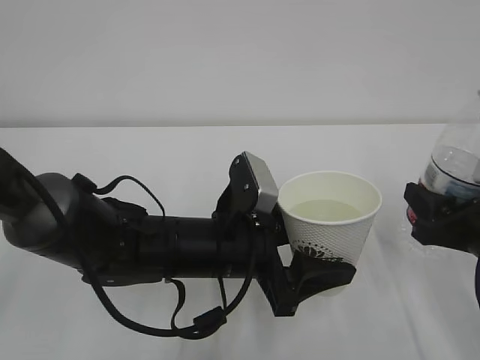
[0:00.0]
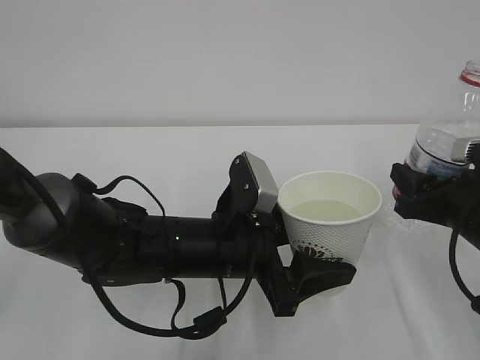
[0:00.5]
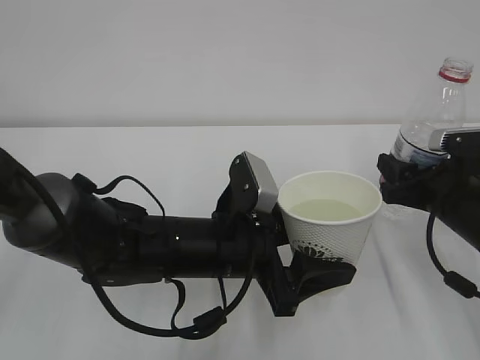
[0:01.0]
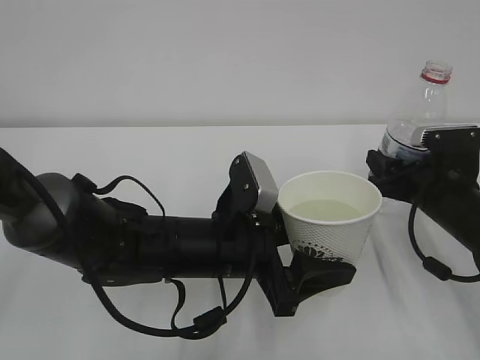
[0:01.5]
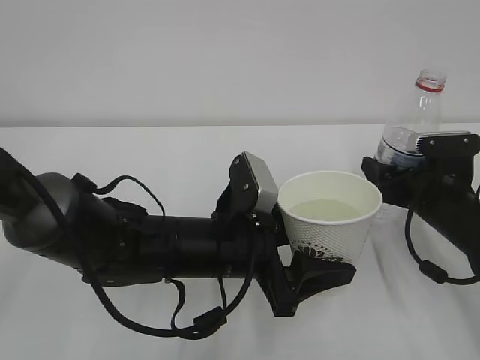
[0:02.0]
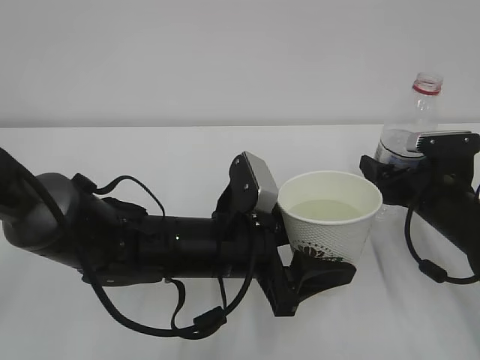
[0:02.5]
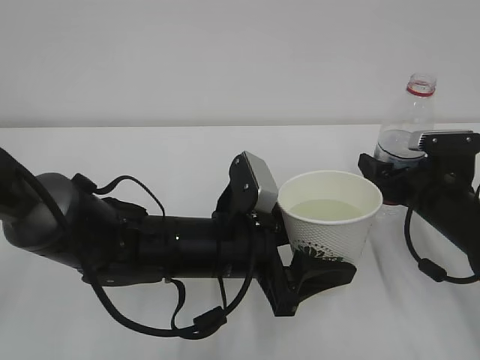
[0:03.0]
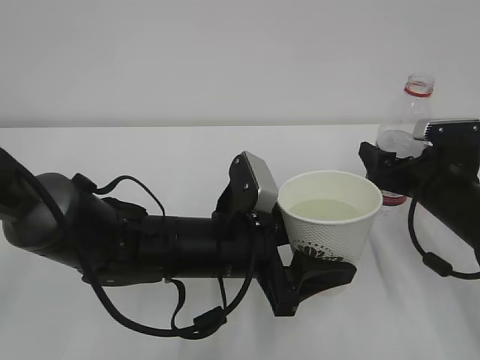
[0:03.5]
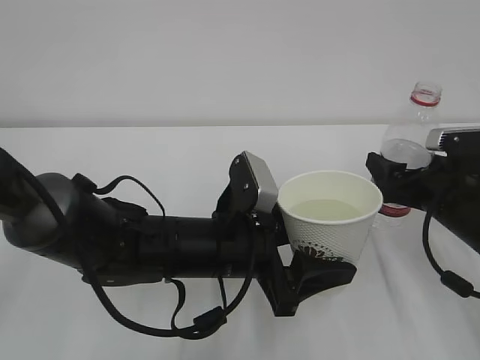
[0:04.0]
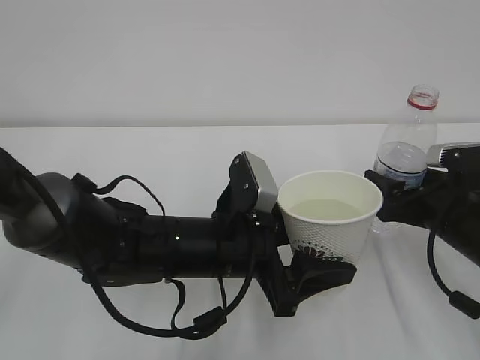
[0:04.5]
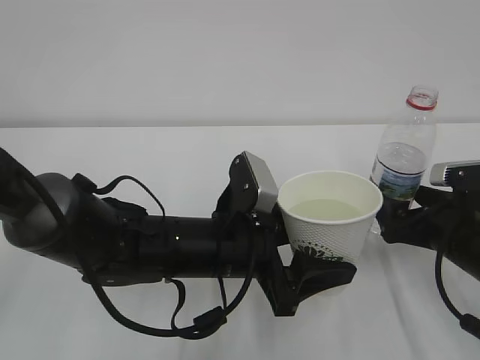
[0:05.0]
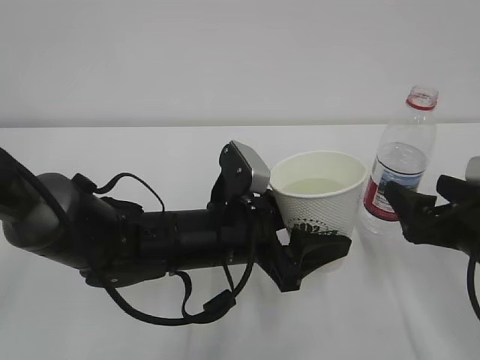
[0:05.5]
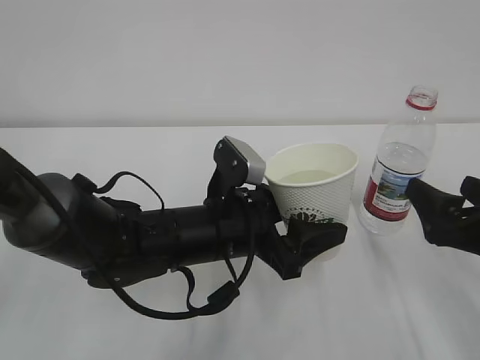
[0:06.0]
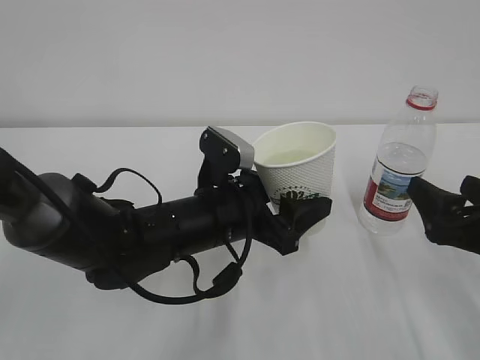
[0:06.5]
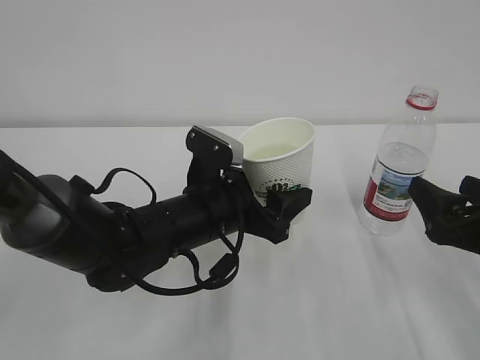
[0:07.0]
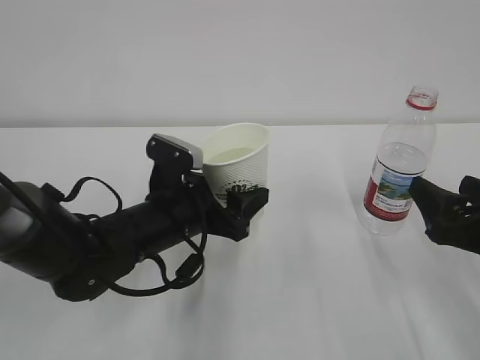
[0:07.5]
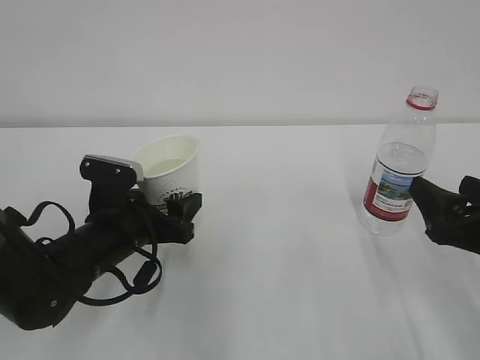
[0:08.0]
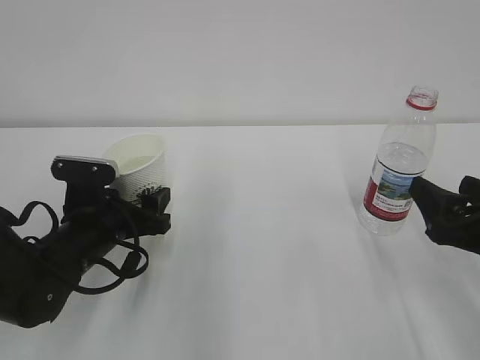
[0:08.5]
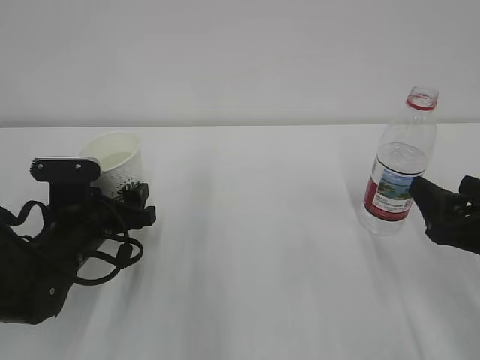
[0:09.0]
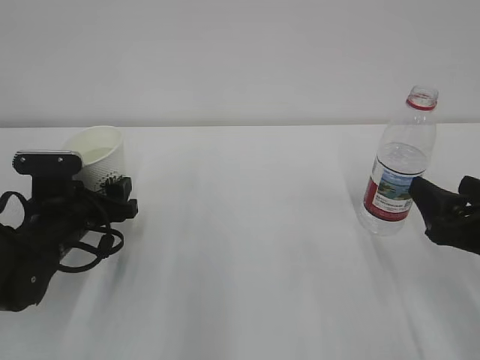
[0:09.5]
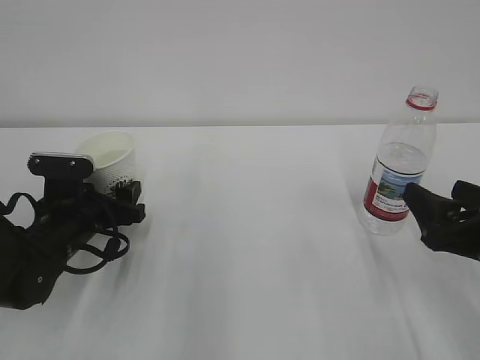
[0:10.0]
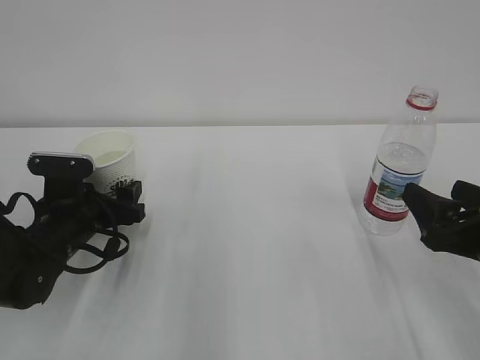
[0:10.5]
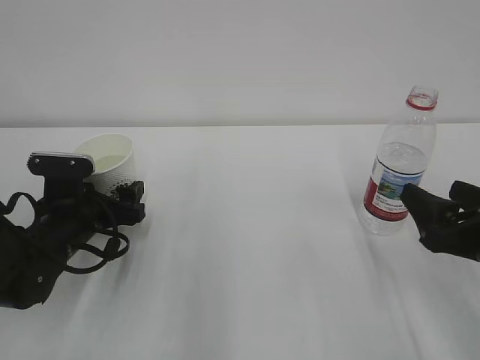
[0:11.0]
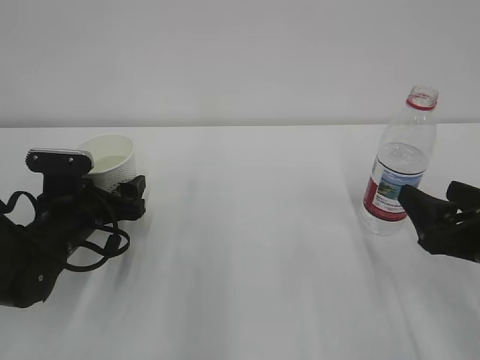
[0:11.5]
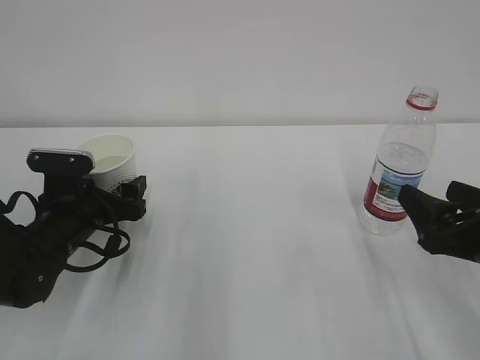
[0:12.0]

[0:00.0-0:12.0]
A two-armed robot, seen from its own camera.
0:00.0 to 0:02.0: The right gripper travels forward by about 10 cm, and opens its fingers.
0:02.0 to 0:04.0: The right gripper opens its fingers.
0:04.0 to 0:06.0: The right gripper goes approximately 10 cm backward.
0:06.0 to 0:08.0: The left gripper heads to the left, covering some 10 cm.
0:08.0 to 0:10.0: The left gripper goes about 5 cm to the left.
0:10.0 to 0:12.0: The left gripper opens its fingers.

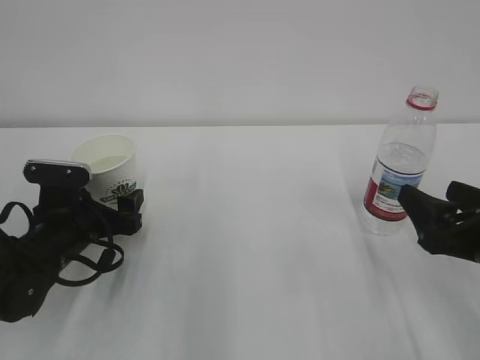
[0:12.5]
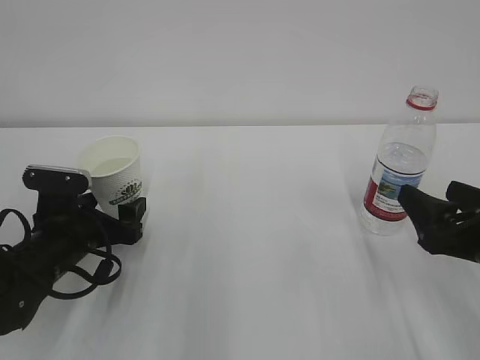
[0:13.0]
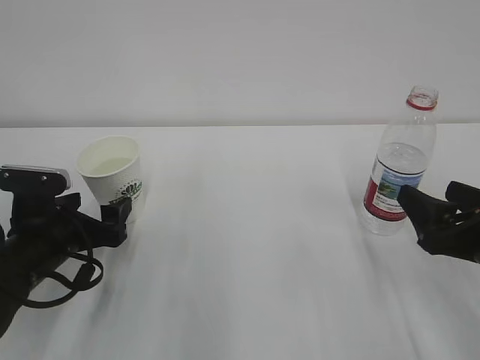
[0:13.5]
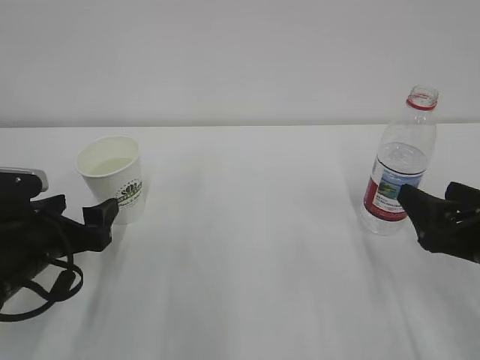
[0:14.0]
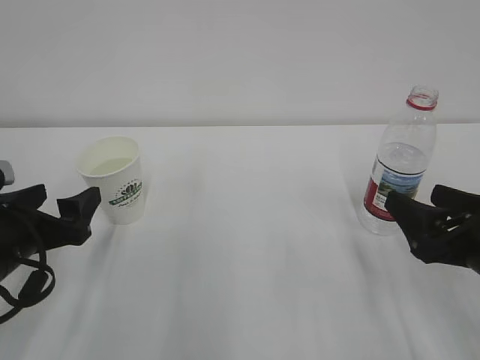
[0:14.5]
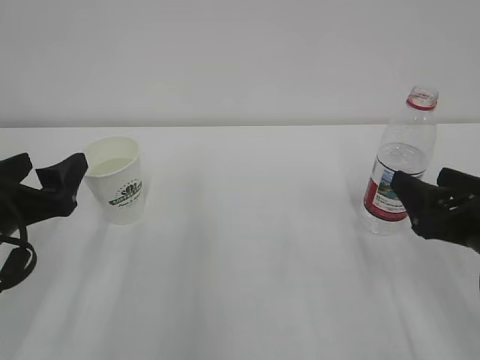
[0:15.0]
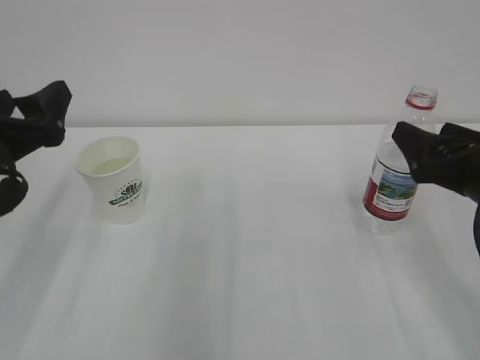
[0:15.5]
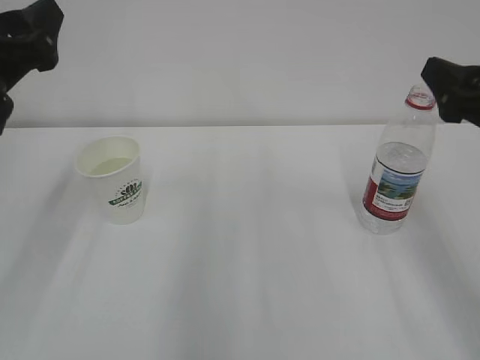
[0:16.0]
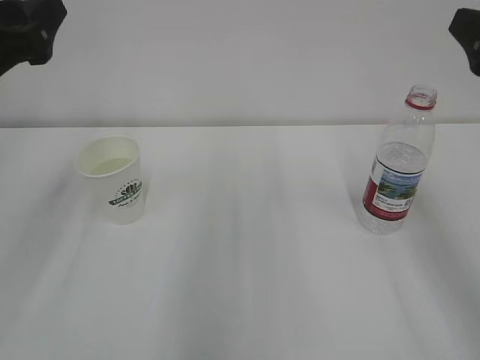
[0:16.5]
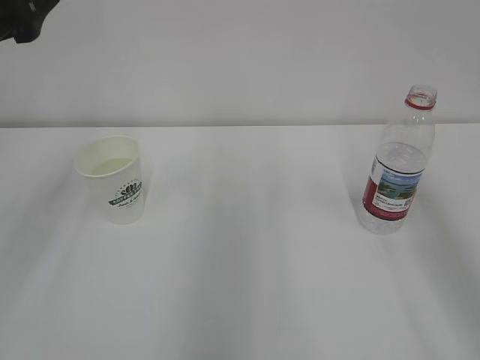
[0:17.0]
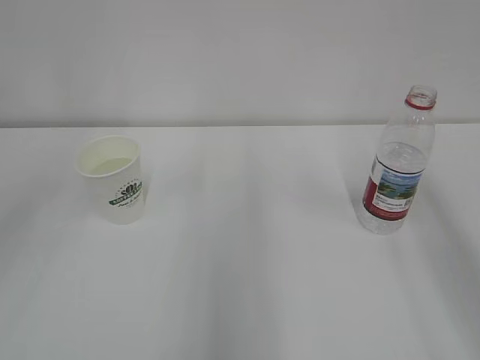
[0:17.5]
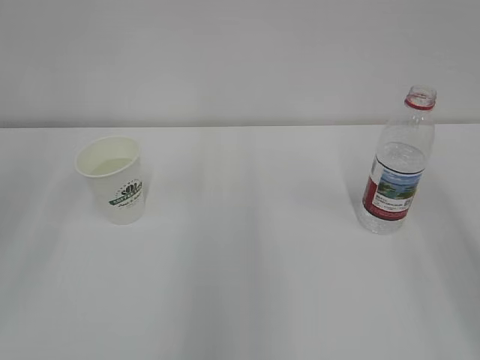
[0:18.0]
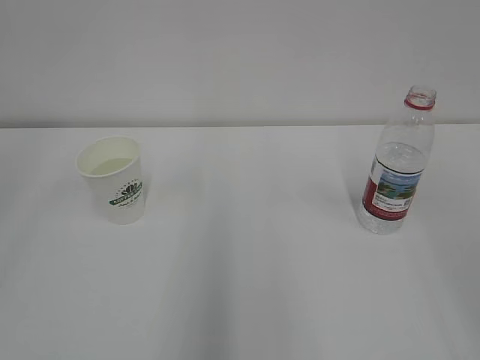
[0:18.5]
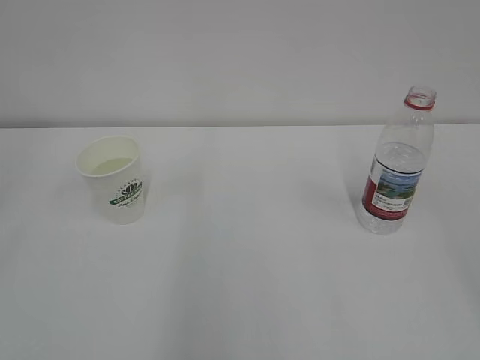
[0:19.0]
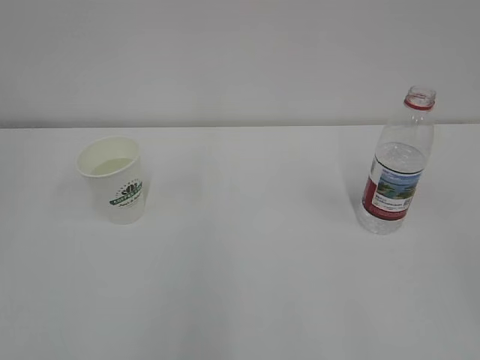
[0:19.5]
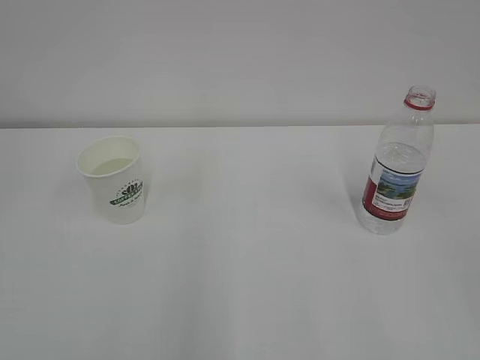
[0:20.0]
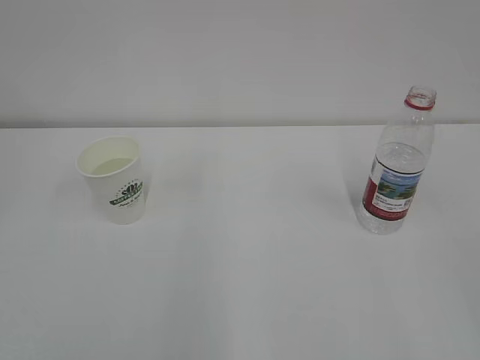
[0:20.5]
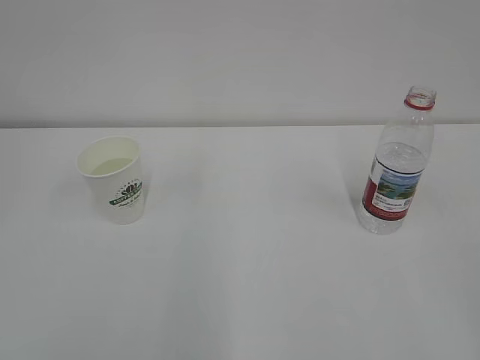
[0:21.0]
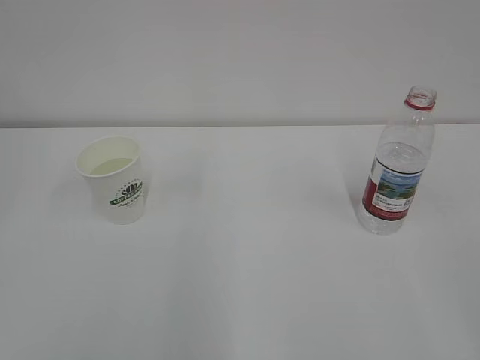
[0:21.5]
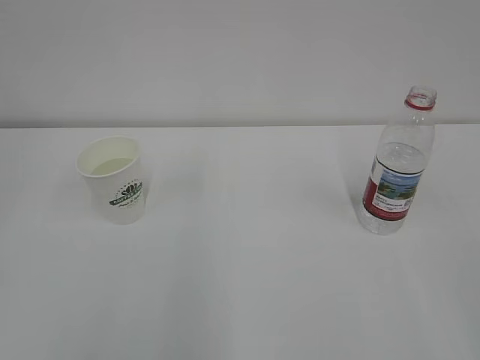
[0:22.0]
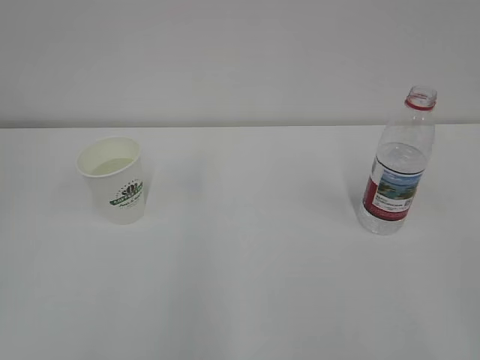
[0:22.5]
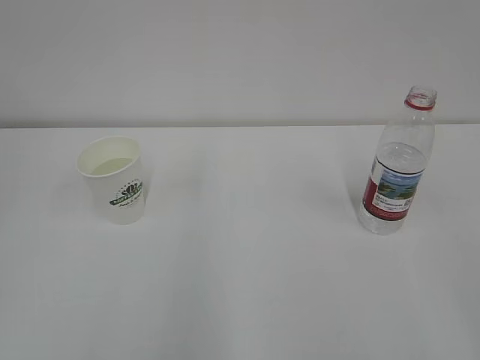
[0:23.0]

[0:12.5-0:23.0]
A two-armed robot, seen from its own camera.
0:12.5 to 0:14.5: The left gripper heads backward and upward, covering some 10 cm.
0:14.5 to 0:16.5: The two grippers go some 15 cm upward.
0:16.5 to 0:19.0: The left gripper is displaced backward and upward by some 25 cm; the right gripper is displaced backward by approximately 25 cm.
